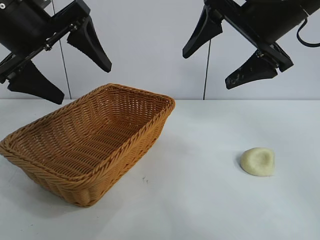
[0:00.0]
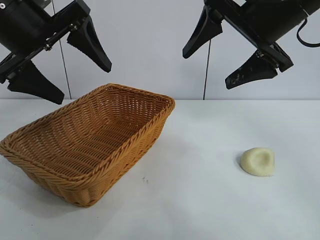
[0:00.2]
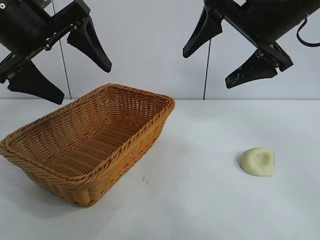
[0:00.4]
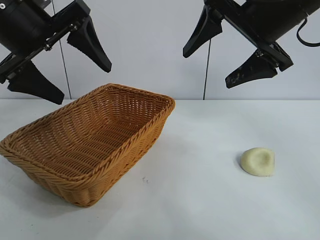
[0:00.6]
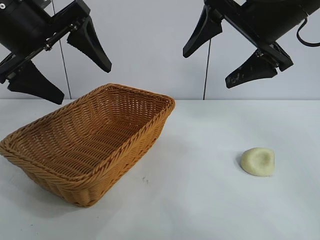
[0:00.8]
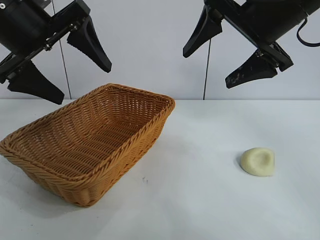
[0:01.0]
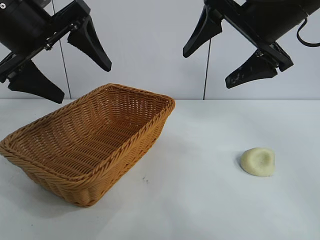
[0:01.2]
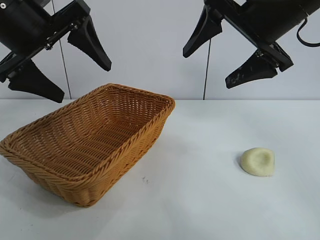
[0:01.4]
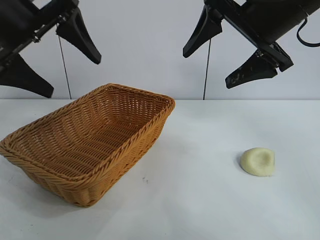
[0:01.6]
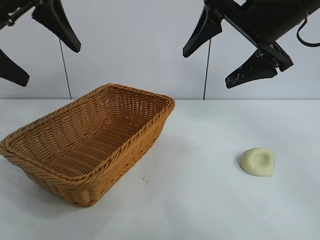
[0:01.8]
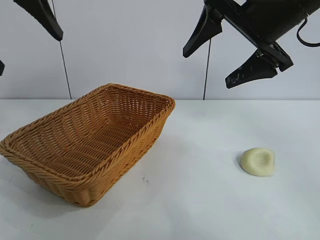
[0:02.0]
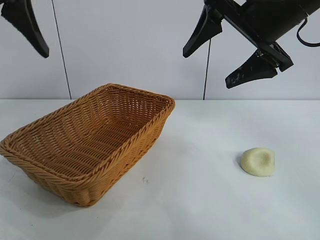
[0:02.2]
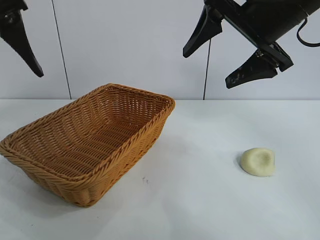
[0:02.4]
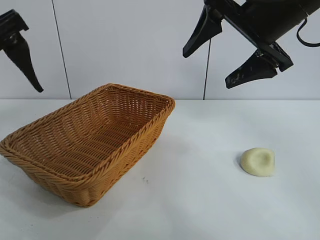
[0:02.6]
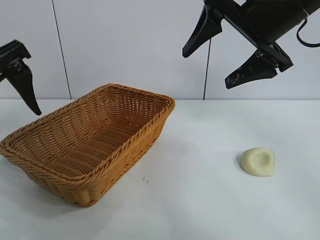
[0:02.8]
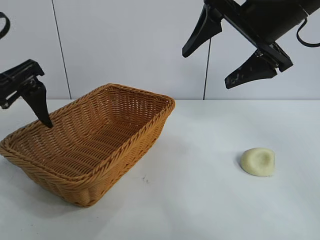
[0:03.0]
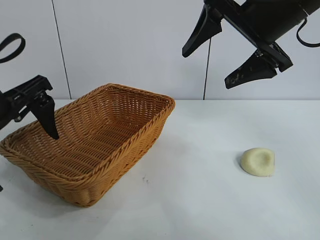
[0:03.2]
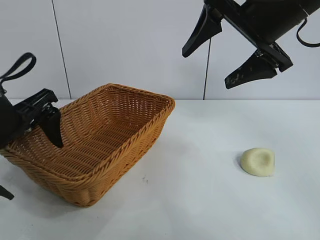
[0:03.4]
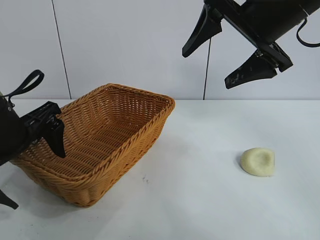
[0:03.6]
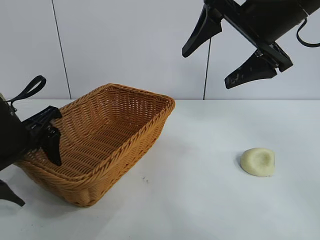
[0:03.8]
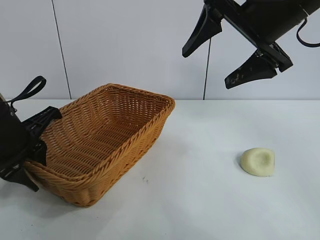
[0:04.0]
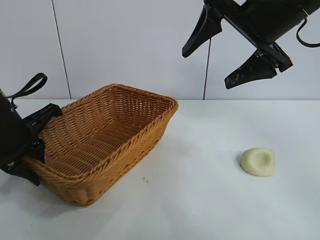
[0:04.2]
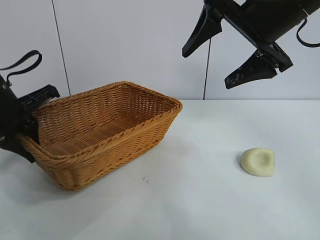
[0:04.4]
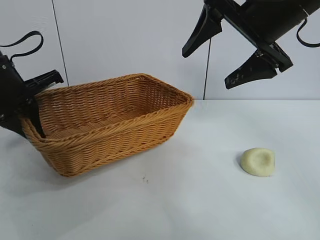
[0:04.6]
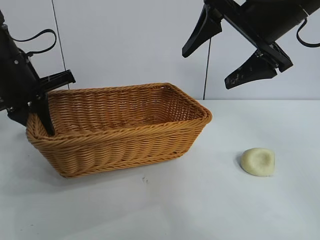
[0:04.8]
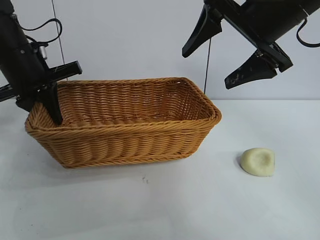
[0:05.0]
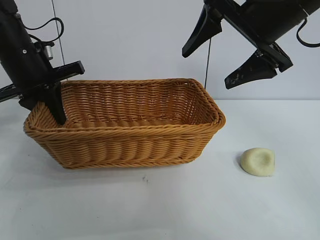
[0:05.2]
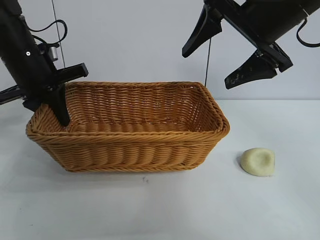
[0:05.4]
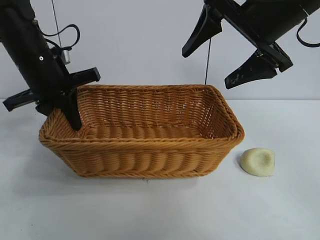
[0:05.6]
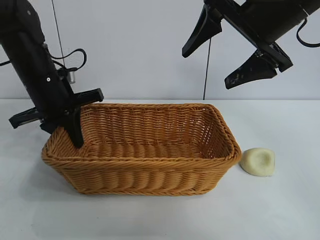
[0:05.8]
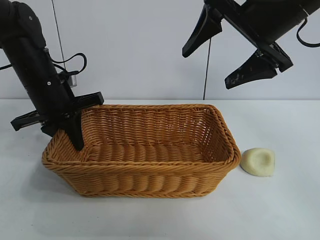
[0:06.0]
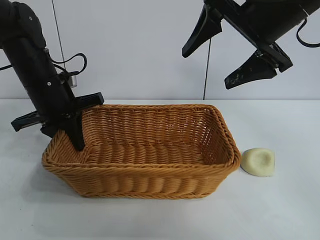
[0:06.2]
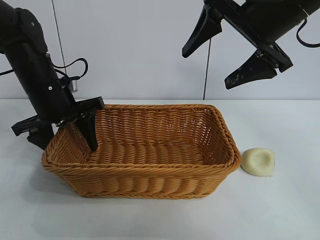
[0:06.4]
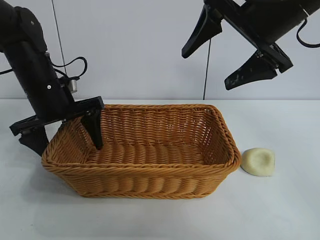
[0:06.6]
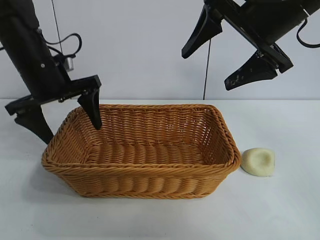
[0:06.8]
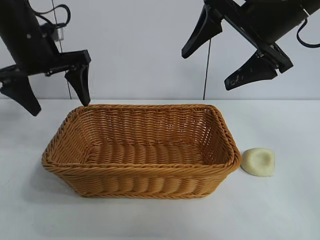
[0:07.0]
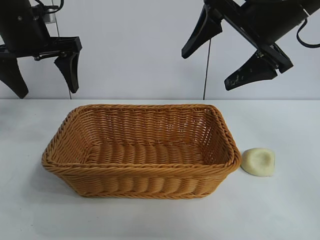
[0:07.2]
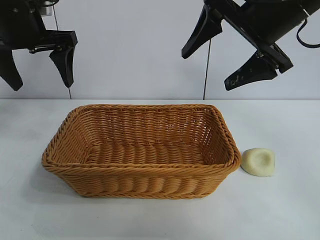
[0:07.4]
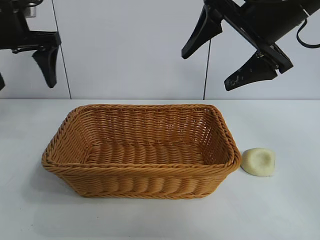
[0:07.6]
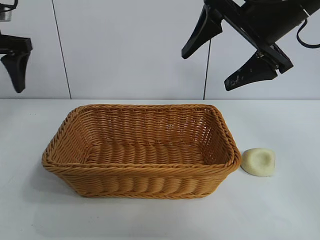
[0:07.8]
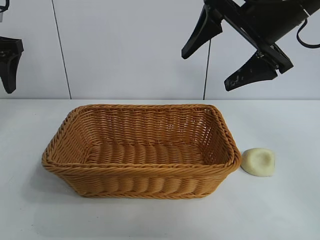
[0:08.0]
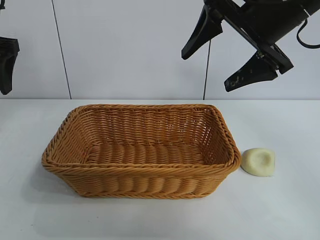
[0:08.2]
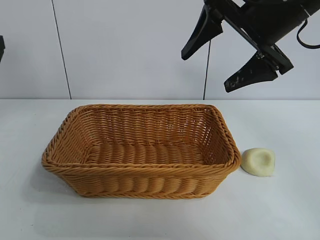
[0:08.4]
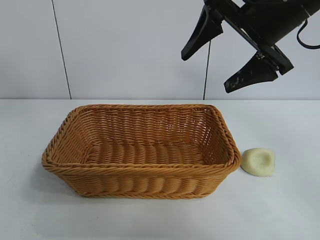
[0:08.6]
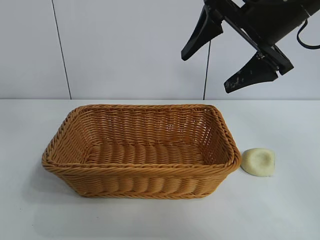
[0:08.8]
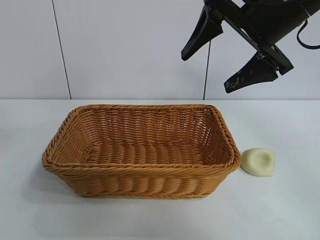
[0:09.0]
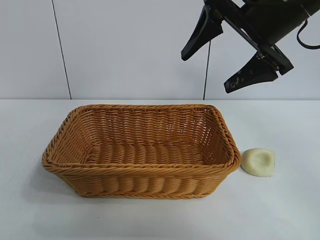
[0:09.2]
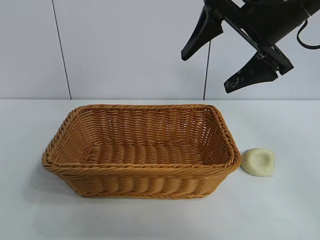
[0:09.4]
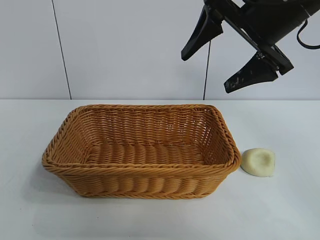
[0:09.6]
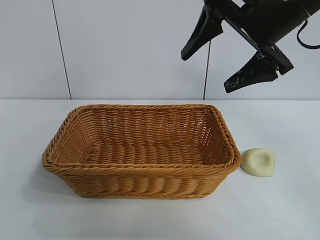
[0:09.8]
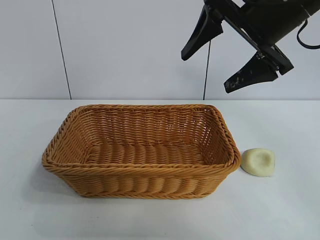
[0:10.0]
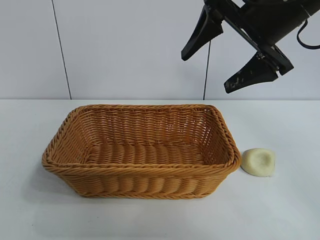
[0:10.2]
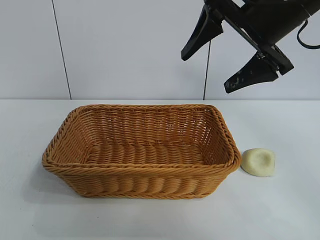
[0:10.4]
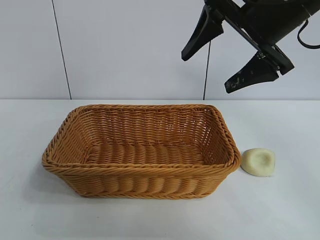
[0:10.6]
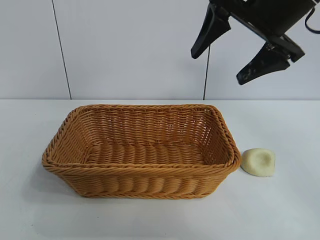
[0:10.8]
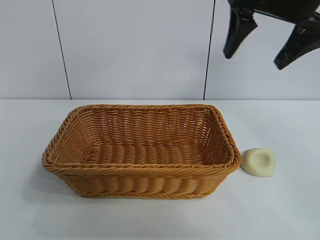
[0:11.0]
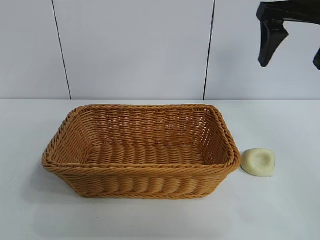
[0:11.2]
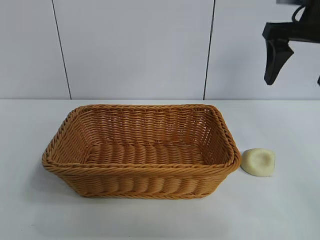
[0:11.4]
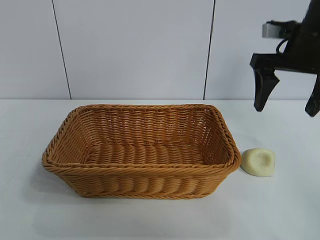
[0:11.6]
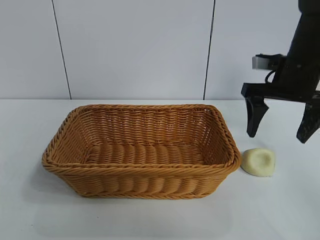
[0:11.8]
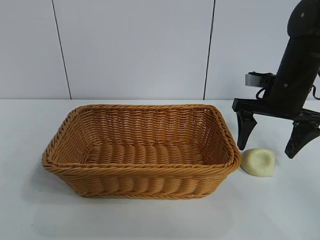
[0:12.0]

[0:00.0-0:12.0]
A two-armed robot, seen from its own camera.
Task of the whole recording: pick up the egg yolk pastry and put it into the basket.
Step, 0:00.0 to 0:04.0: Grasp the basket with left gripper.
Step, 0:04.2 to 0:06.4: Place the basket in the center of view with left gripper.

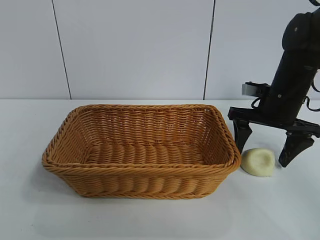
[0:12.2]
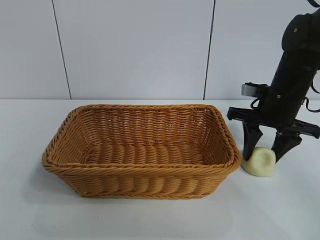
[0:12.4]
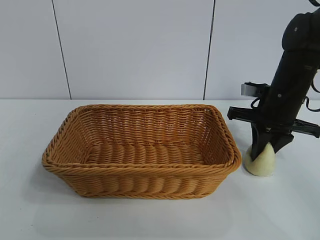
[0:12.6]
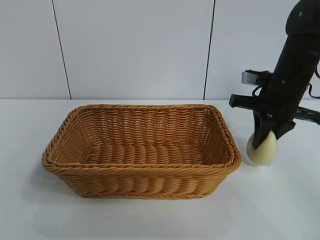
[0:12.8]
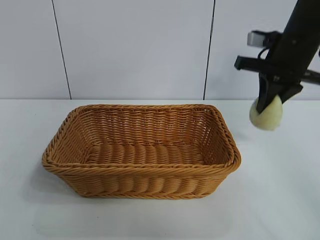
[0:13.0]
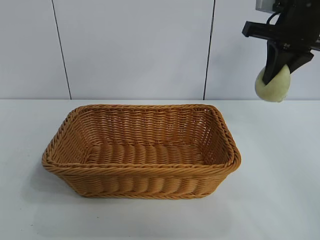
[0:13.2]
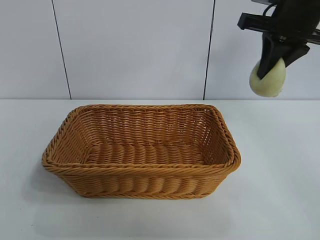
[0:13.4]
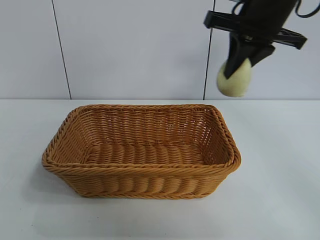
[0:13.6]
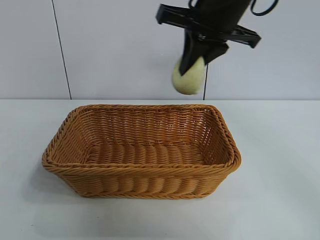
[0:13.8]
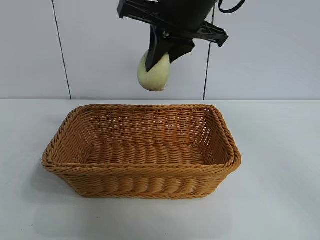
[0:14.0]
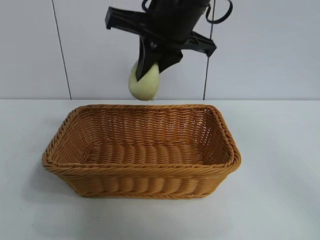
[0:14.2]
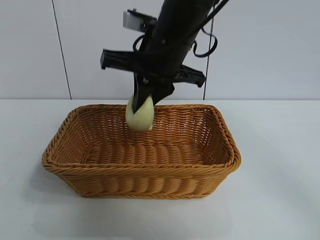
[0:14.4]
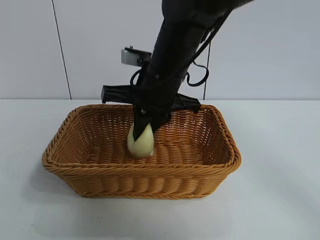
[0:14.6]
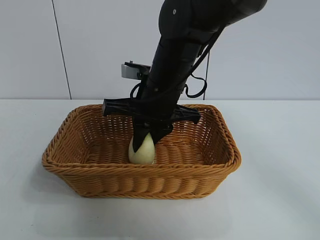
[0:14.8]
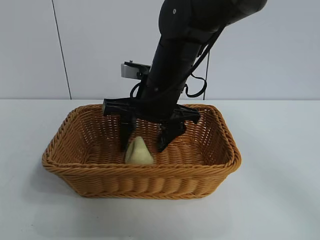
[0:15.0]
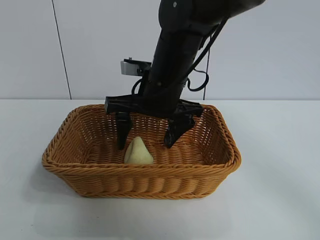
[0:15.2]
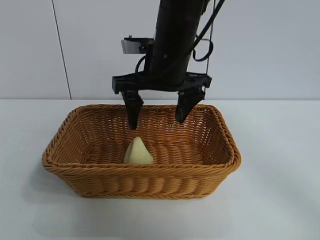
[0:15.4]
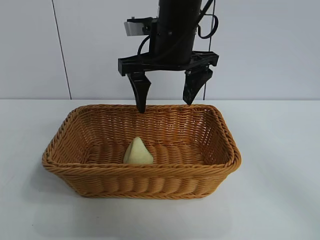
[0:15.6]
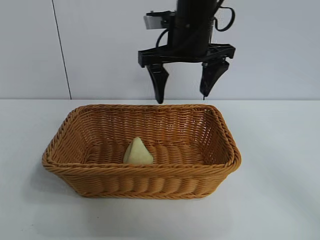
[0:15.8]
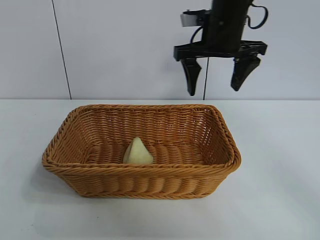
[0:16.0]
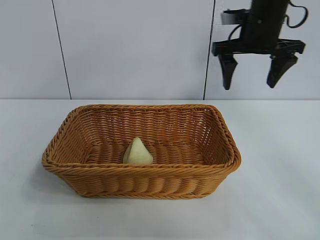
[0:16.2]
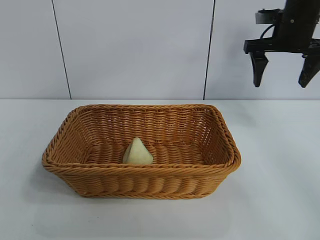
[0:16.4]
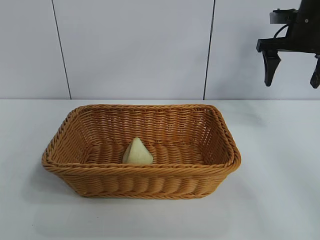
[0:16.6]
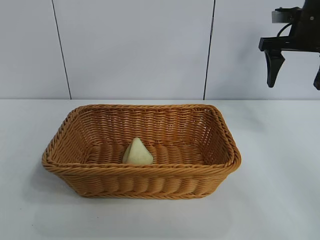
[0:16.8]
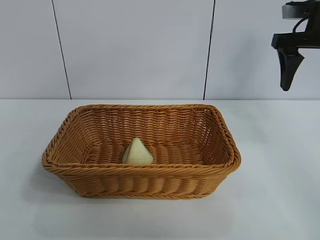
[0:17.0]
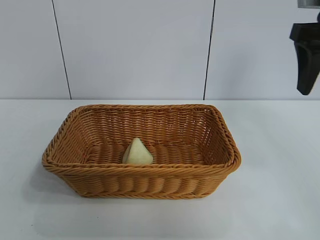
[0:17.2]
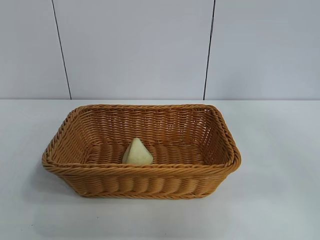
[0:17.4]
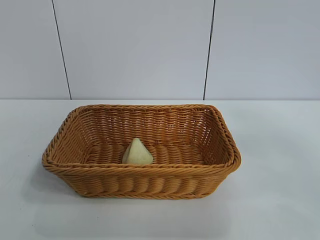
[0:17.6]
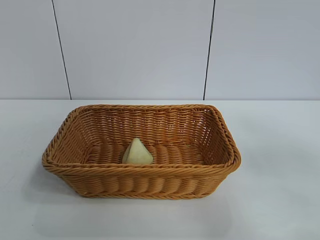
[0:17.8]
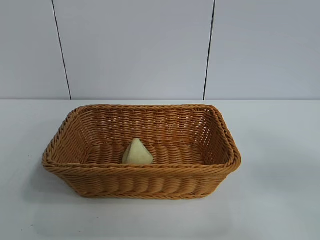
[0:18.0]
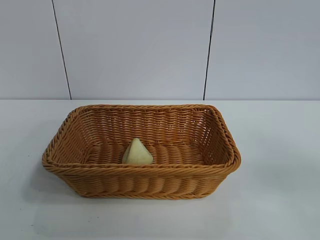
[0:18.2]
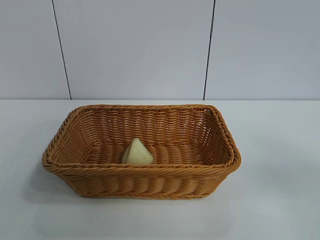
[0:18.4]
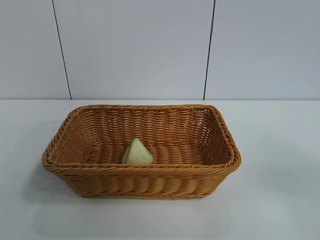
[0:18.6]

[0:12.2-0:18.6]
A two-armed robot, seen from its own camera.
Task of the whole recording: pick up the egg yolk pastry and put it into the basket.
Step, 0:12.6 to 0:15.2: Place the egg yolk pastry in the basket with right gripper.

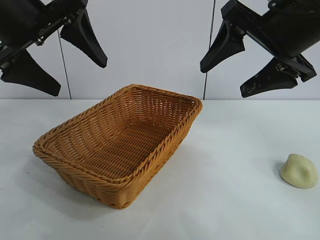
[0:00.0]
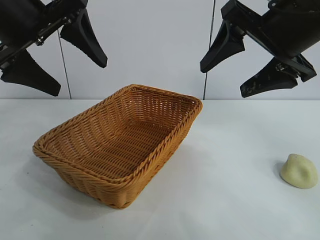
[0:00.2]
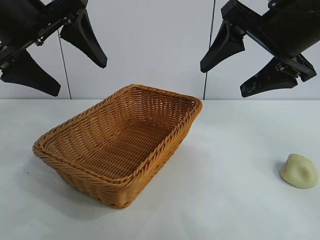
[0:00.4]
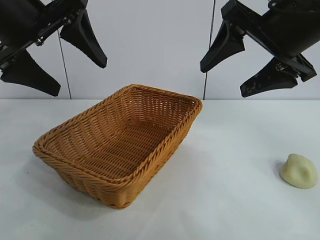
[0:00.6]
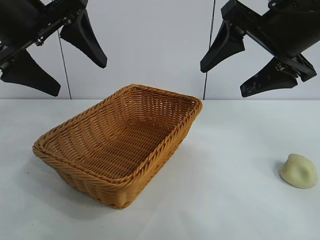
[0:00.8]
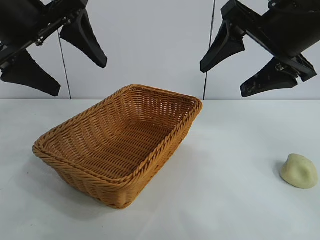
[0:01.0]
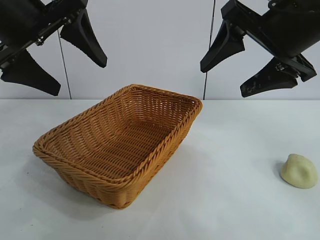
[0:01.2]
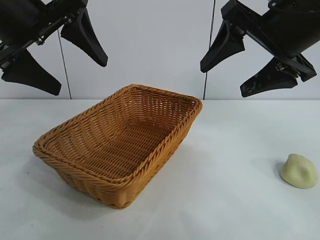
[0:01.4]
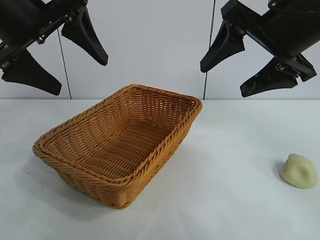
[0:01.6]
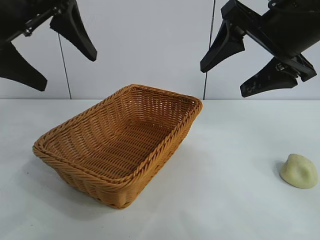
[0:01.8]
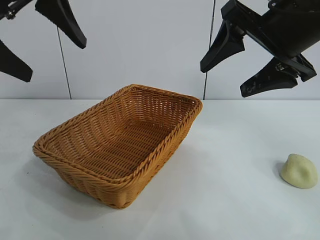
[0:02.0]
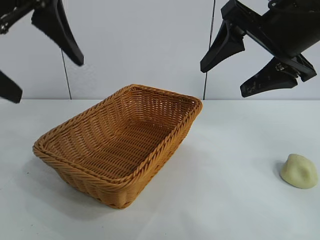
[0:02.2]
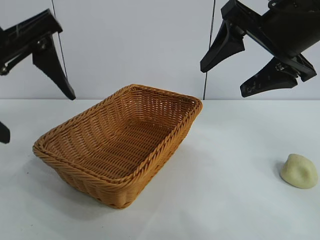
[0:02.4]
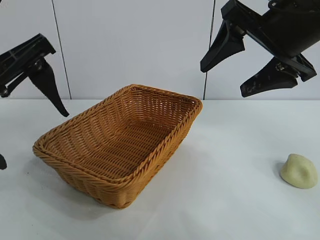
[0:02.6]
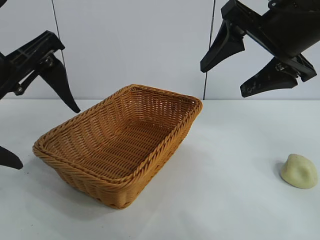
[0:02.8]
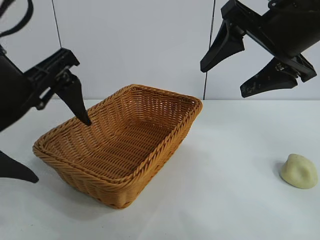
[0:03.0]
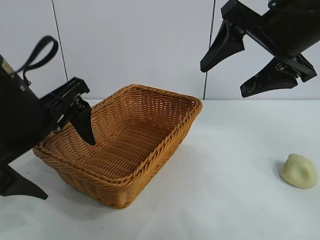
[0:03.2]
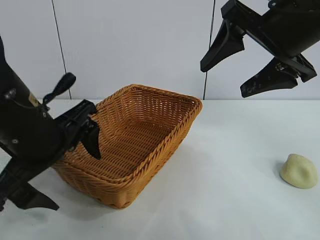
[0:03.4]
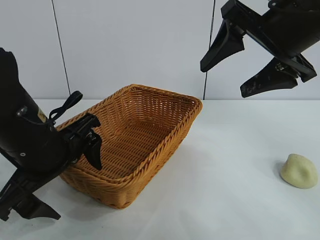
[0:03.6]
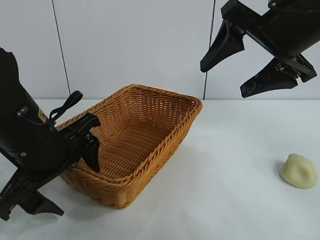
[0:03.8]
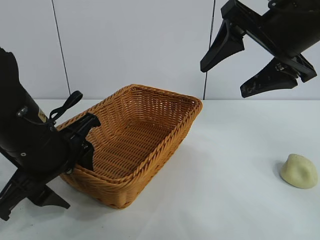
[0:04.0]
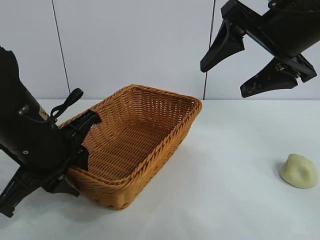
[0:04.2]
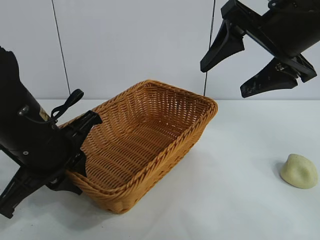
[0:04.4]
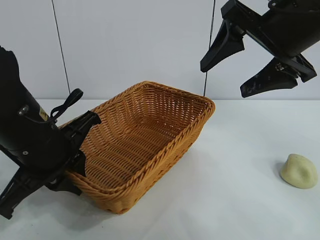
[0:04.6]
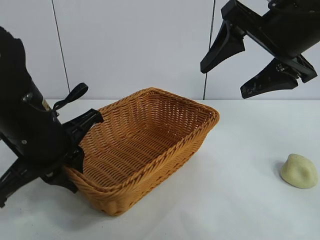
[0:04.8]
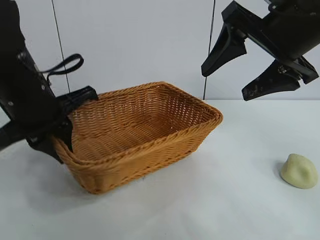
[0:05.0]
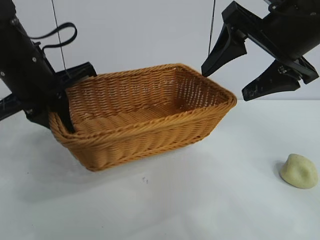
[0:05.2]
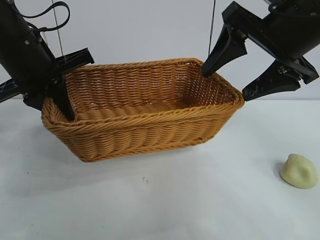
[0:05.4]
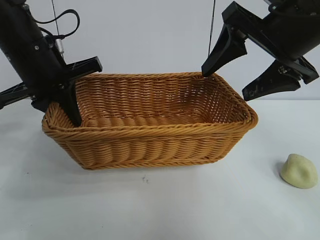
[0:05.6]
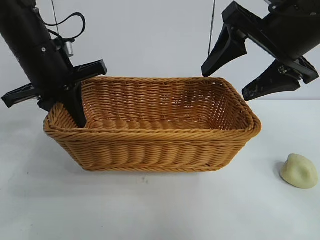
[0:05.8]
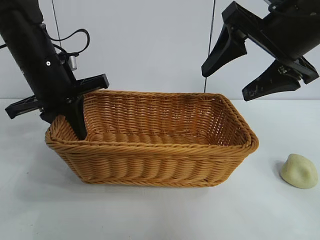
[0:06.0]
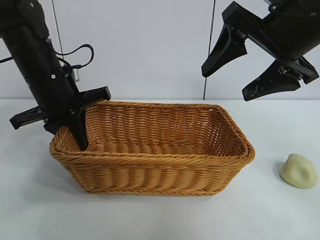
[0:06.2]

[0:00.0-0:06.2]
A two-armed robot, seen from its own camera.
Task of the whole recording: pick up the egg yolk pastry and put it into the basket.
Step, 0:01.4 to 0:04.2: Grasp the basket with left gripper.
